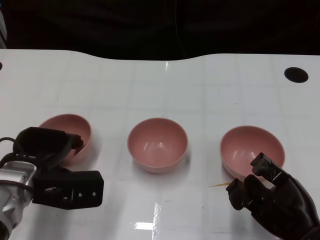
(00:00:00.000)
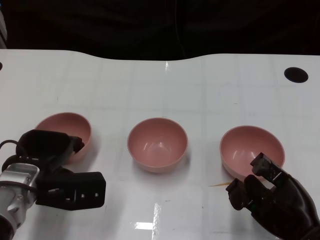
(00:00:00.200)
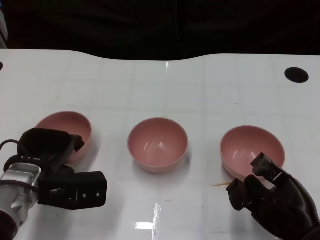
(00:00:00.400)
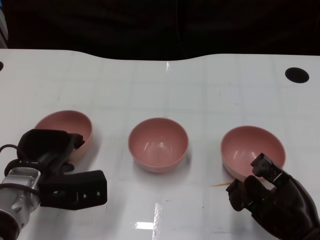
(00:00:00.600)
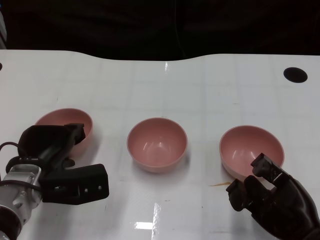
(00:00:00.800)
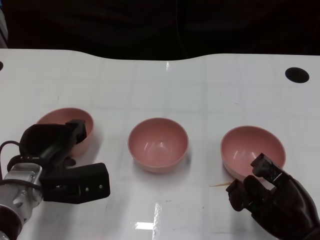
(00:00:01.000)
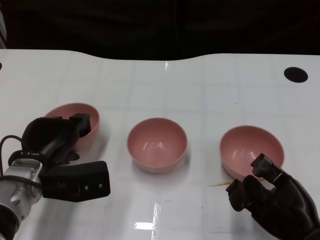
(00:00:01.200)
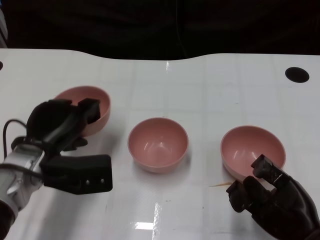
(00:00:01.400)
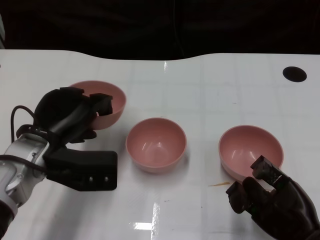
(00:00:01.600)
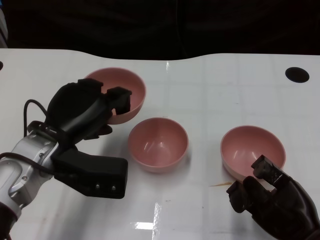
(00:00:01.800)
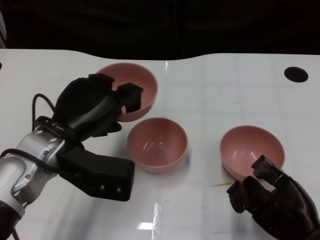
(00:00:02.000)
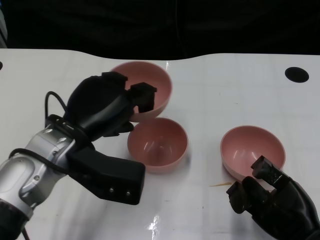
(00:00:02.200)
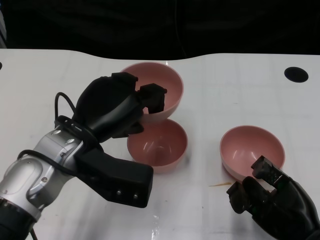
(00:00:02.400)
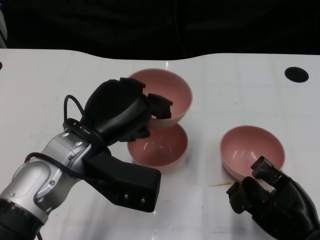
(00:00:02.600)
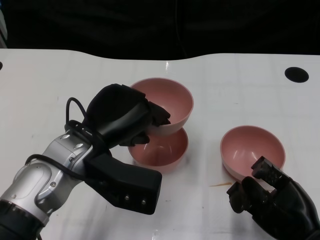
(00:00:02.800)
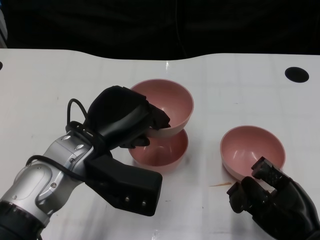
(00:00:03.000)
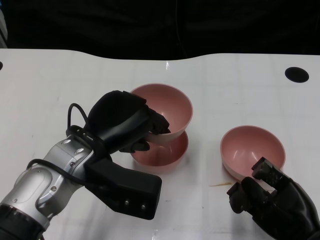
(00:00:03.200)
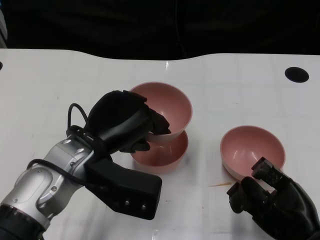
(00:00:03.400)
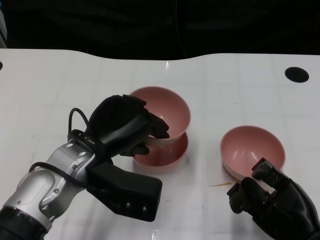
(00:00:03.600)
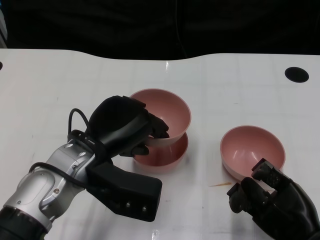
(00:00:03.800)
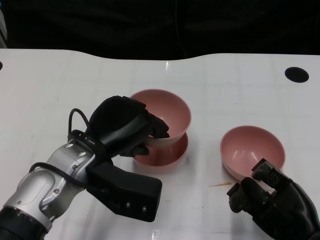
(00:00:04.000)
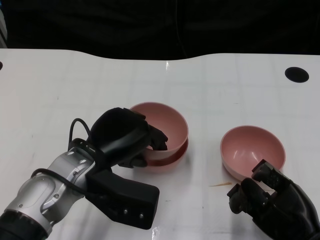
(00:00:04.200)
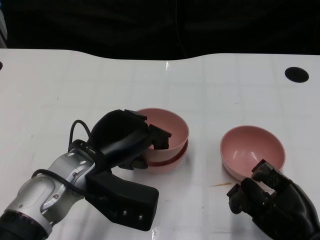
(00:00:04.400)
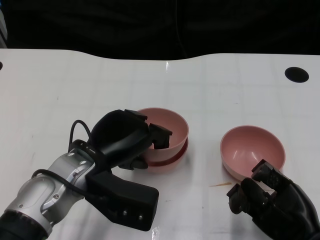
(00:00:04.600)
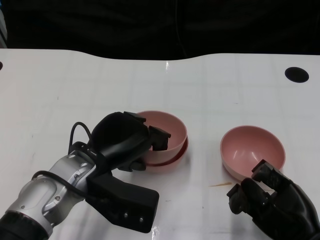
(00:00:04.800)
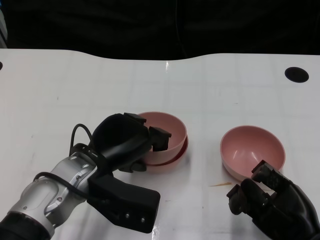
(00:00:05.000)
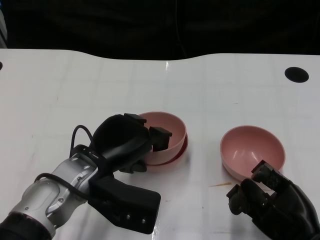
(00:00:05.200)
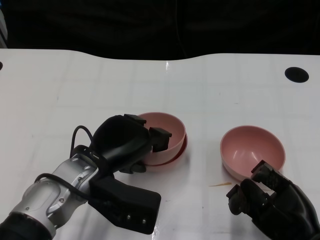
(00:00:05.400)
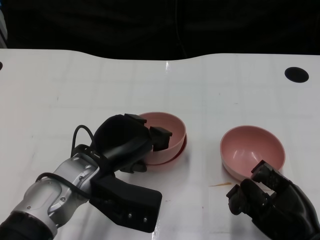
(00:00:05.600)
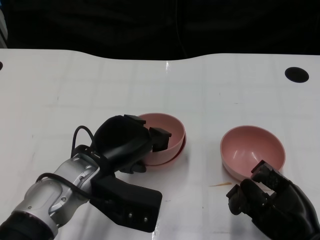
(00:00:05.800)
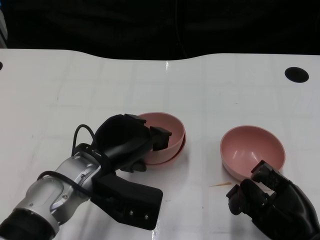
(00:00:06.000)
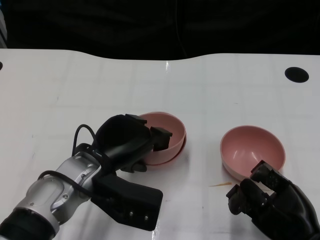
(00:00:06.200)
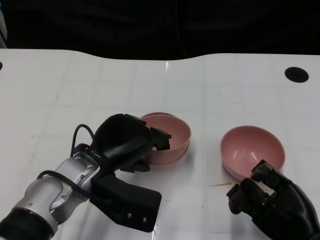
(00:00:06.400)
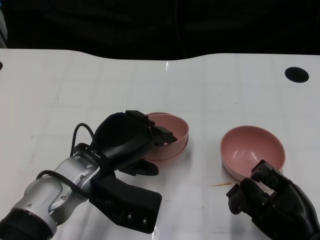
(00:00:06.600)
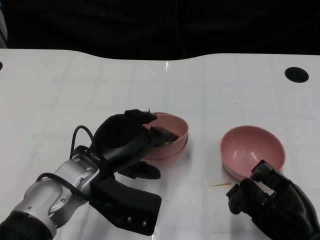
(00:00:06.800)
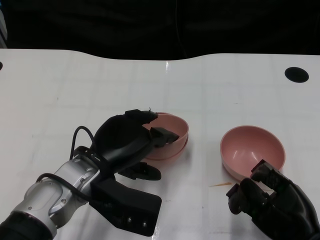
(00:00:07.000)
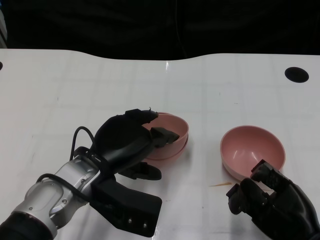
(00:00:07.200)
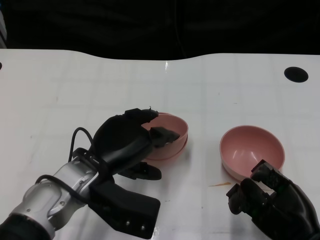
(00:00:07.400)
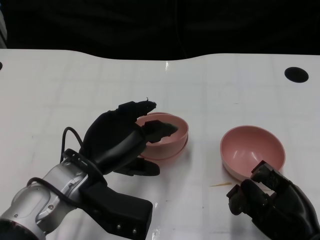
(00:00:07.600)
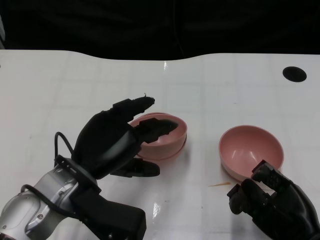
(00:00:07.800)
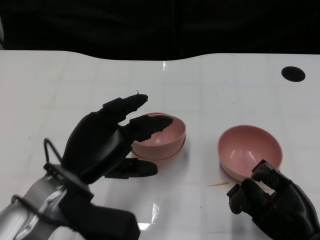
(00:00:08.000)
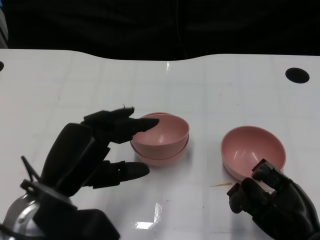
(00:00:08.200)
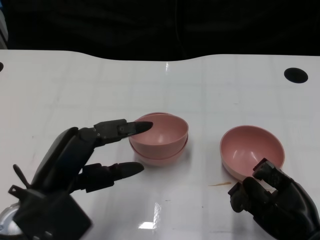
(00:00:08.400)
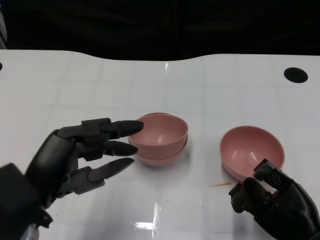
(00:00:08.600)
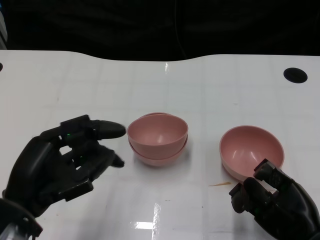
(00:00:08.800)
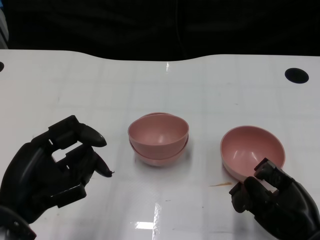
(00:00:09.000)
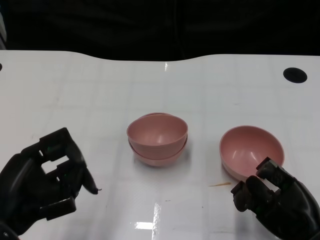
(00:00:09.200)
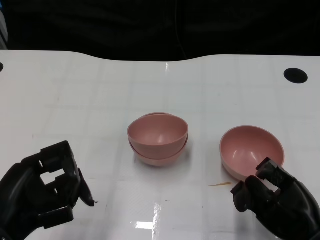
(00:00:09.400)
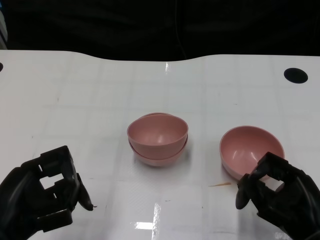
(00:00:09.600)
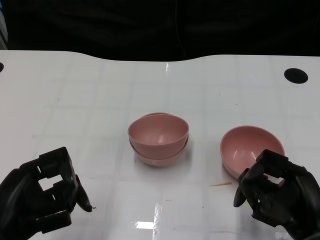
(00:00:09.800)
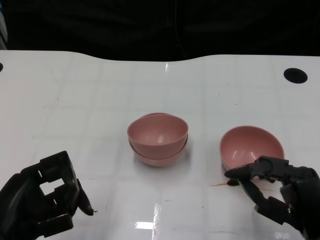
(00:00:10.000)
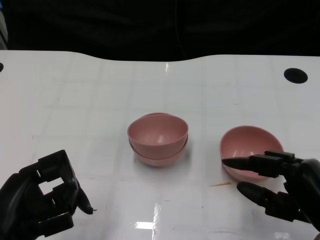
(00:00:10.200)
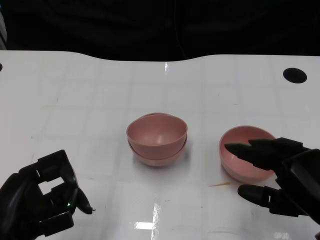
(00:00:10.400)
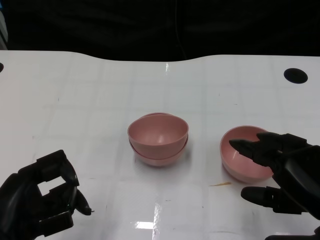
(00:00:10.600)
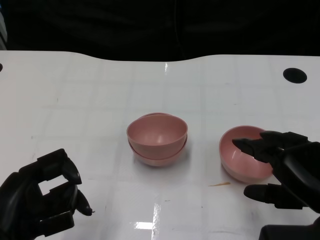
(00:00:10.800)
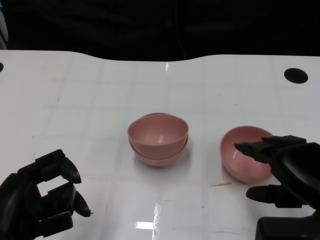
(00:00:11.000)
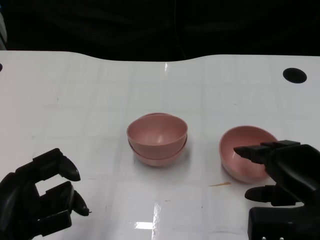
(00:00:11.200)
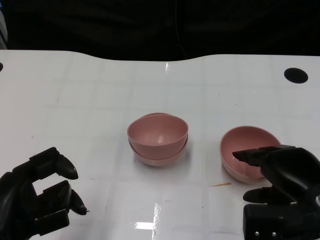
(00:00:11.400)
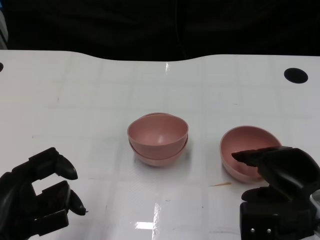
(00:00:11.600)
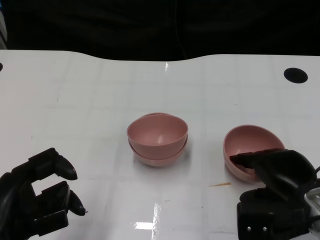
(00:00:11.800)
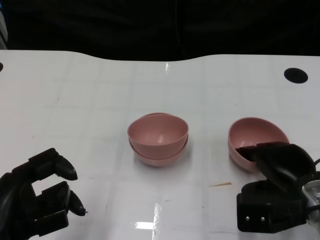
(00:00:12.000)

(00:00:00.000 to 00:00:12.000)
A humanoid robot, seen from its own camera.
Task of the whole recording: Pick up the bowl on one side of the table and place it on top of the middle bowl, then pick up the bowl on the other side of the table and place it on top of the middle bowls.
Step, 00:00:01.600 - 00:00:07.400: Place the bowl on the left onto the bowl in the middle with left gripper.
00:00:00.000 - 00:00:01.600: The left hand ends up about 5 cm from where it was.
00:00:01.600 - 00:00:03.000: The left hand goes some 5 cm to the right.
00:00:03.000 - 00:00:07.600: The hands move only a little.
00:00:07.600 - 00:00:09.000: The left hand goes roughly 10 cm to the left and backward.
00:00:09.000 - 00:00:10.400: The right hand shifts about 5 cm upward.
00:00:10.400 - 00:00:12.000: The right hand goes about 10 cm forward and downward.

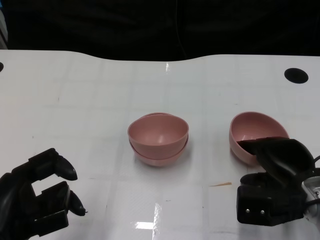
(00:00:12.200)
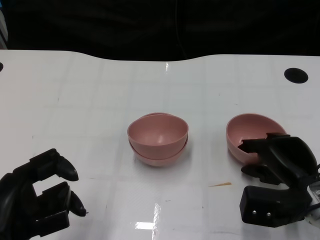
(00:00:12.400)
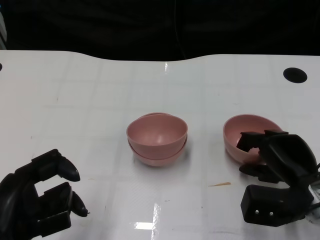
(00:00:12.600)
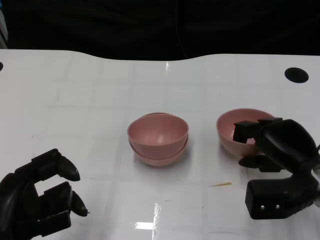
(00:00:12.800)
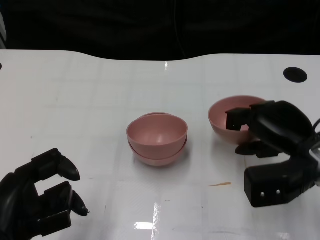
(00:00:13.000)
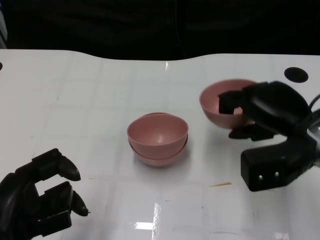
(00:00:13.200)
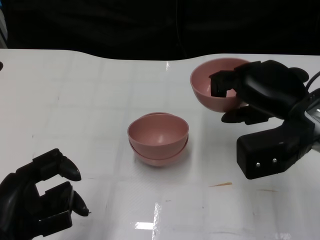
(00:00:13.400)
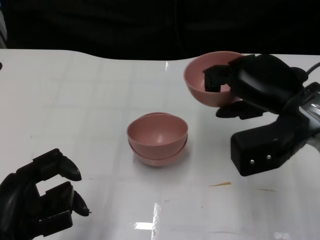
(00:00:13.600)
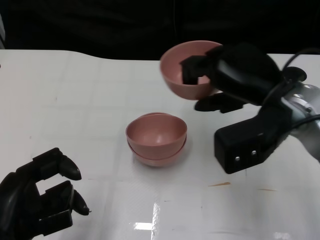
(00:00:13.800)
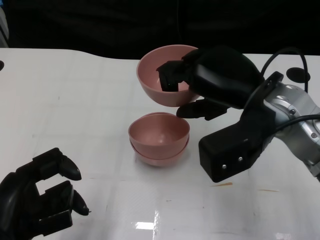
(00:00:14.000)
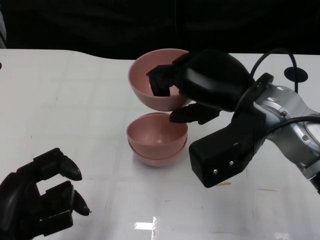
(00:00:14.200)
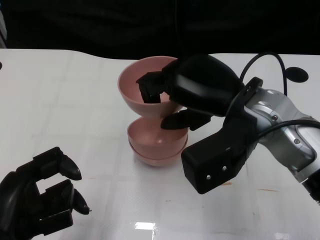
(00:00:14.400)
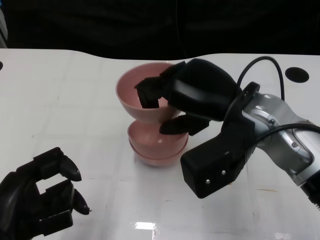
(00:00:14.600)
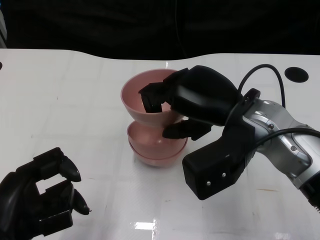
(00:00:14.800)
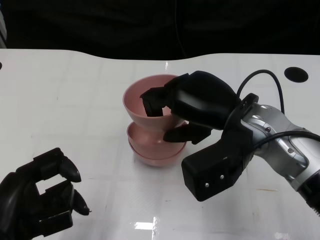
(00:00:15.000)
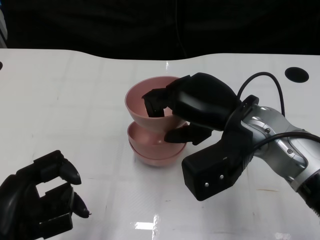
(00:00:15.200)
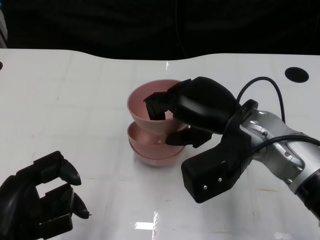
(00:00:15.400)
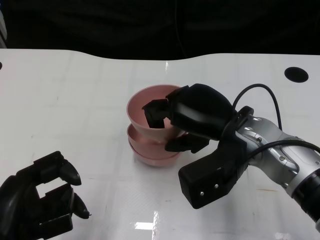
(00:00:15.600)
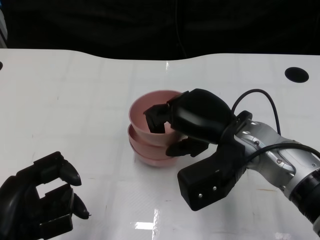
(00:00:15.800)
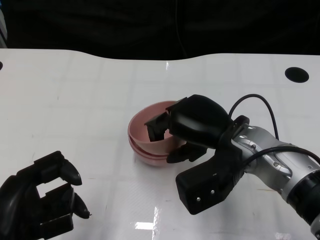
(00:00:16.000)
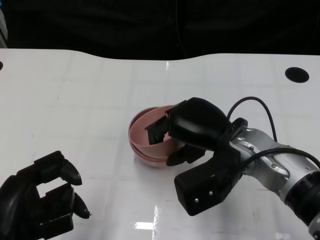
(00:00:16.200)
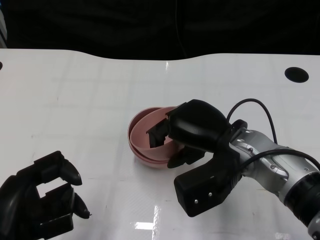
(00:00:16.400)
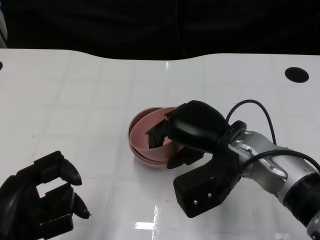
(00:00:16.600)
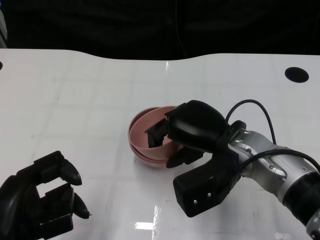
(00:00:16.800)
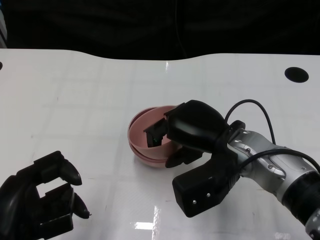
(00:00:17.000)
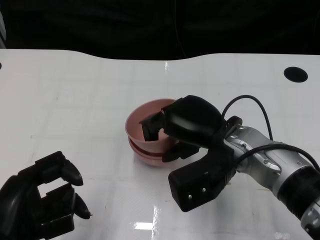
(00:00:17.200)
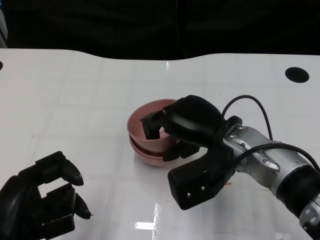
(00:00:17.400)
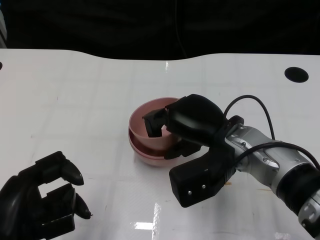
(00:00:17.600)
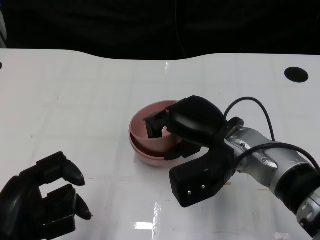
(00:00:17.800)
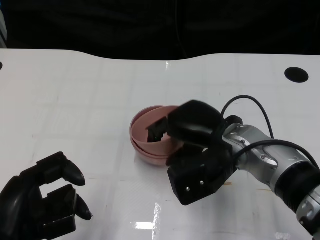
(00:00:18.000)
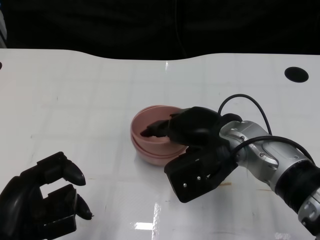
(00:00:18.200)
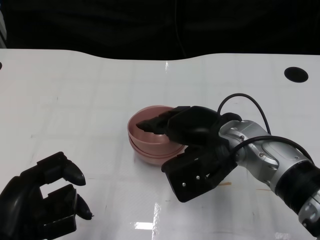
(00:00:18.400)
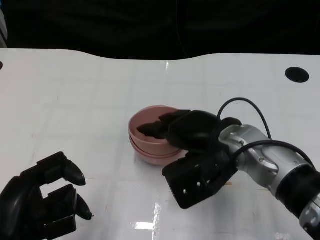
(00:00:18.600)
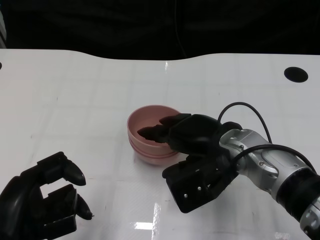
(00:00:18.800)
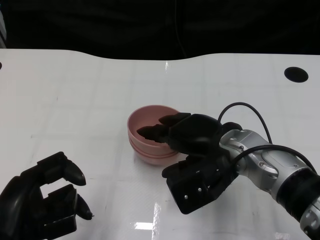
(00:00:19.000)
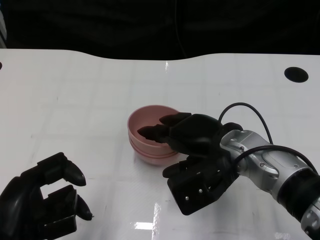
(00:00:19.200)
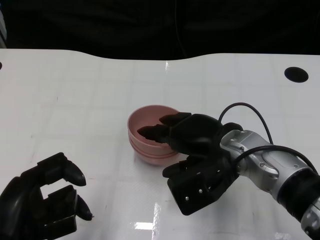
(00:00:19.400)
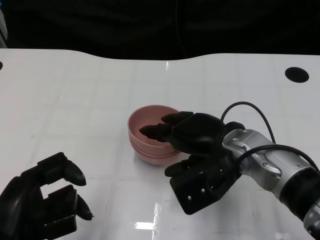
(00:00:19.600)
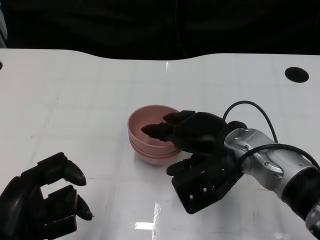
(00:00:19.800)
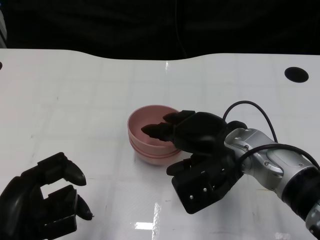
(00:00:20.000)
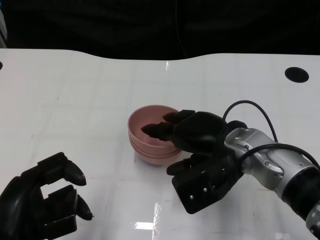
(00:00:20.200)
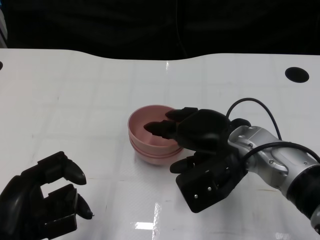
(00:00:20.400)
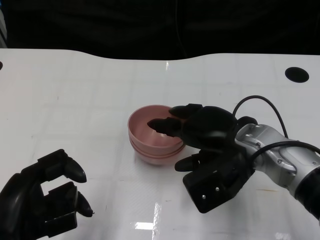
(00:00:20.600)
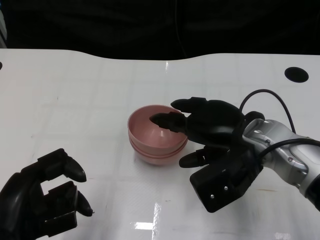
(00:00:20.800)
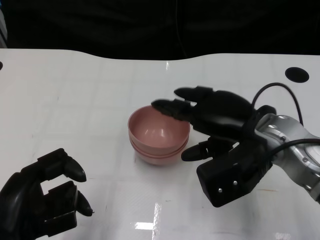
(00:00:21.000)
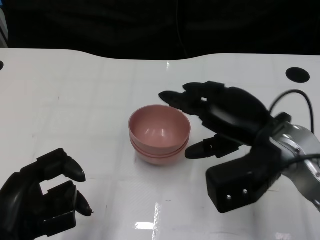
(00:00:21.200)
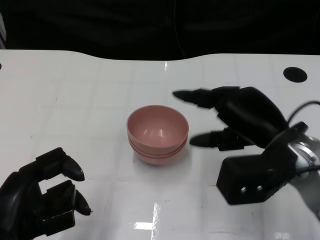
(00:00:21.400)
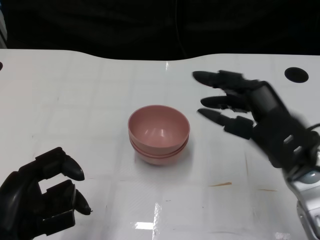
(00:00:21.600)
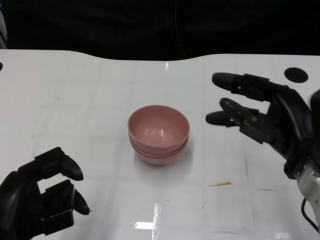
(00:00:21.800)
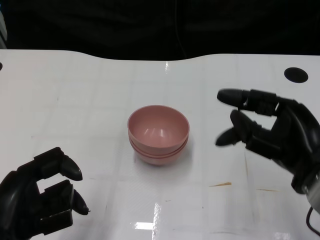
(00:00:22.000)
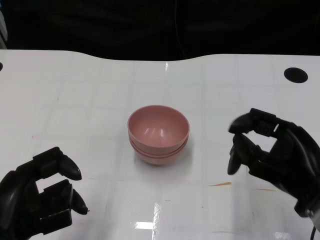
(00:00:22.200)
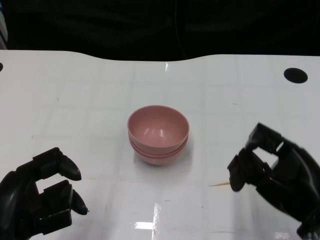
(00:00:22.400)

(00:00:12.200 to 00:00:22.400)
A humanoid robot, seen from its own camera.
Task of the whole recording: Pick up the bowl on one side of the table and place it on top of the middle bowl, then pick up the bowl on the other side of the table and place it on top of the middle bowls.
Step, 00:00:13.000 - 00:00:20.400: Place the bowl on the right onto the bowl in the middle with right gripper.
00:00:12.200 - 00:00:13.600: The right hand is displaced upward by some 15 cm.
00:00:13.600 - 00:00:15.200: The right hand is displaced to the left by roughly 5 cm.
00:00:15.200 - 00:00:18.000: The hands stay close to where they were, moving slightly.
00:00:18.000 - 00:00:19.400: There are only small adjustments of the hands.
00:00:19.400 - 00:00:21.000: The right hand moves about 5 cm.
00:00:21.000 - 00:00:22.400: The right hand moves backward and to the right, roughly 15 cm.
